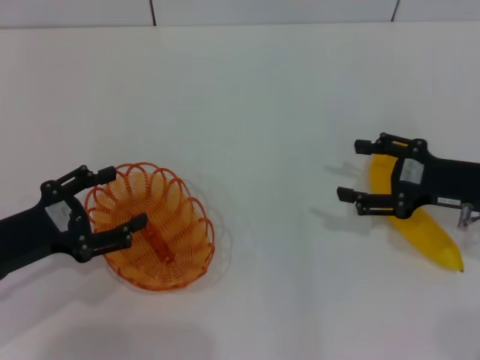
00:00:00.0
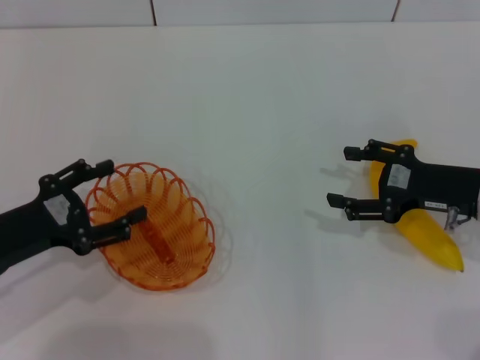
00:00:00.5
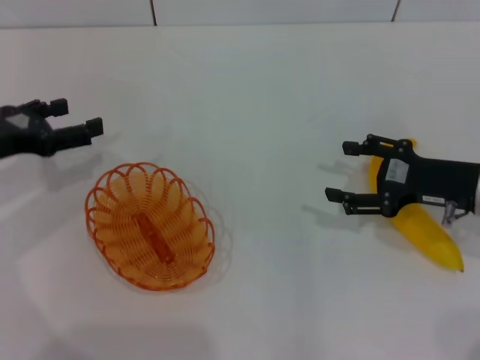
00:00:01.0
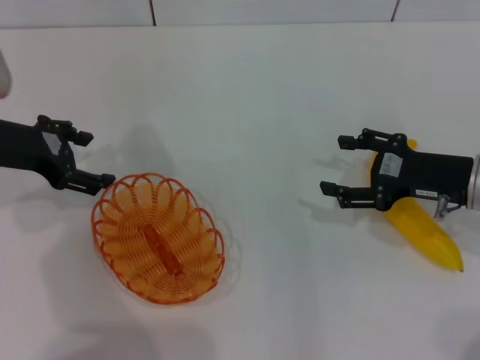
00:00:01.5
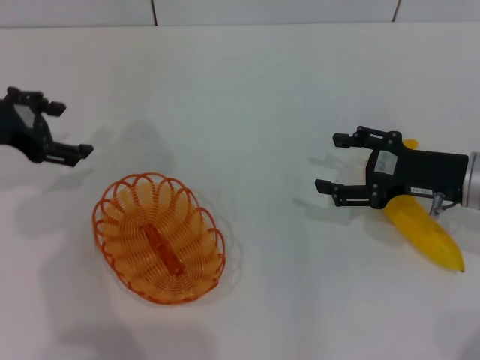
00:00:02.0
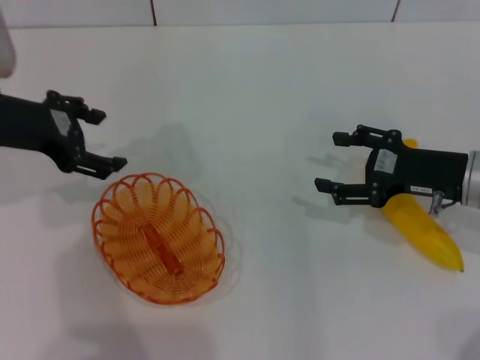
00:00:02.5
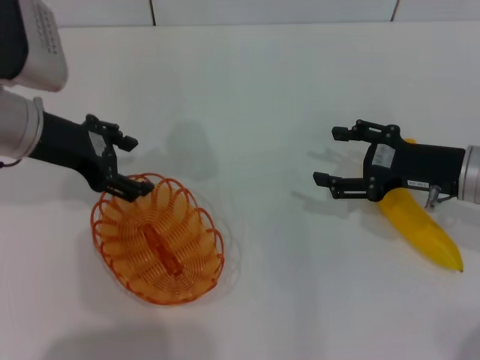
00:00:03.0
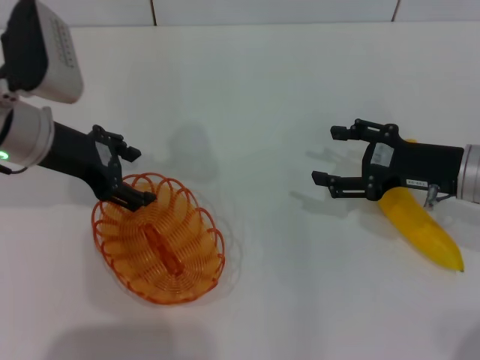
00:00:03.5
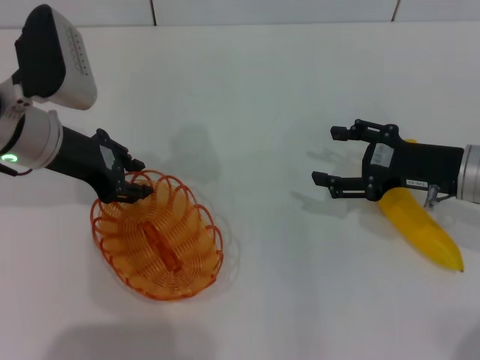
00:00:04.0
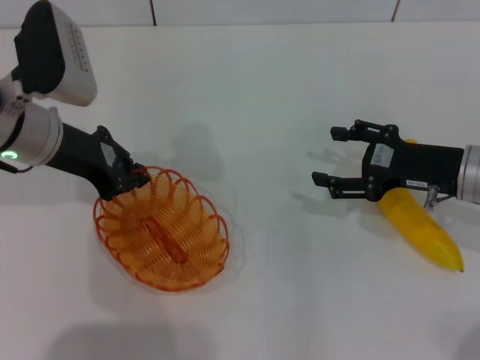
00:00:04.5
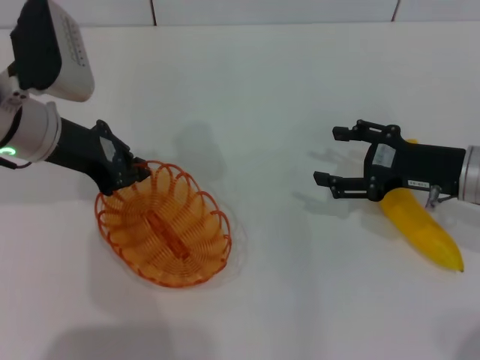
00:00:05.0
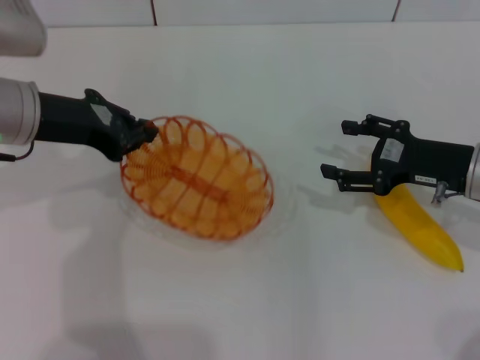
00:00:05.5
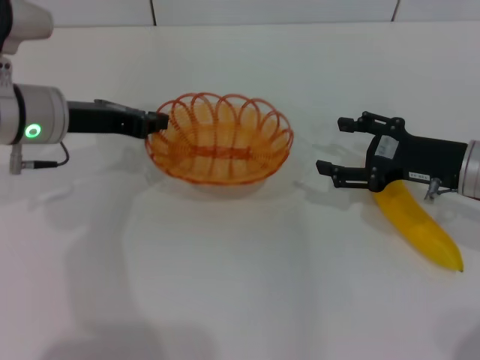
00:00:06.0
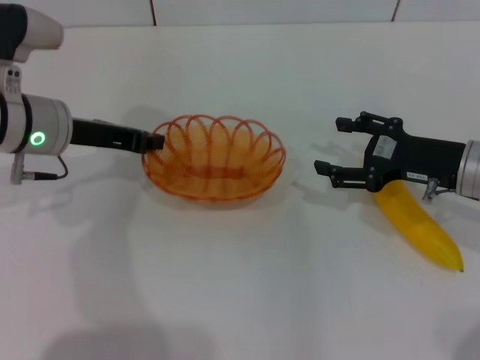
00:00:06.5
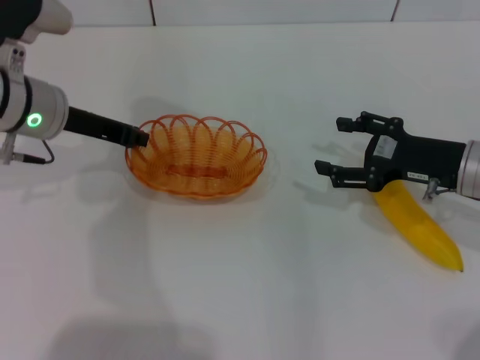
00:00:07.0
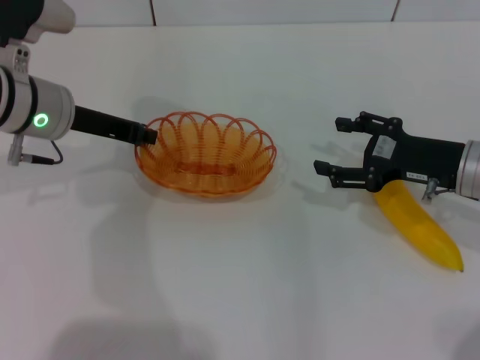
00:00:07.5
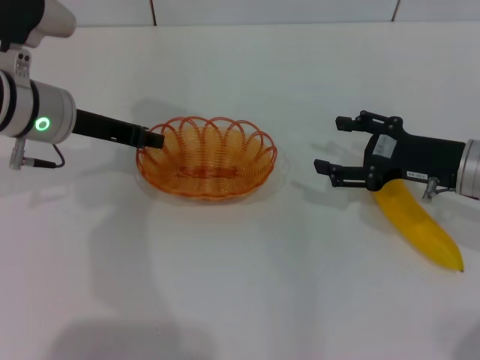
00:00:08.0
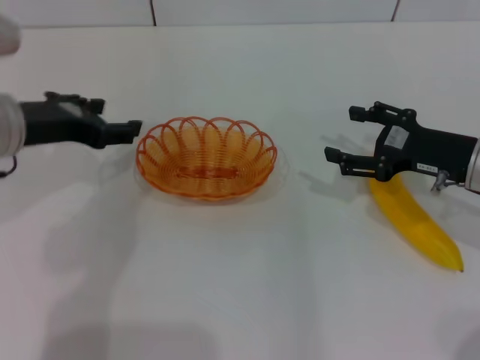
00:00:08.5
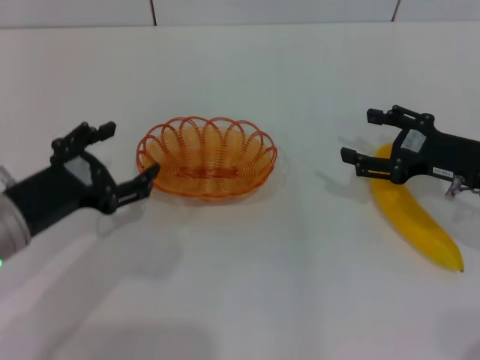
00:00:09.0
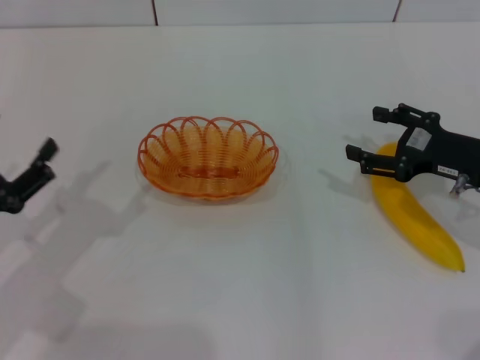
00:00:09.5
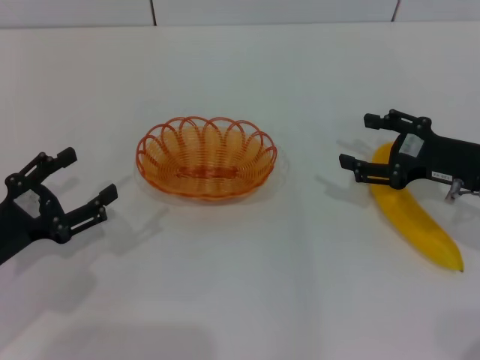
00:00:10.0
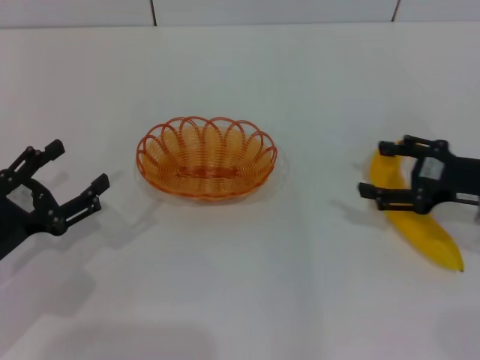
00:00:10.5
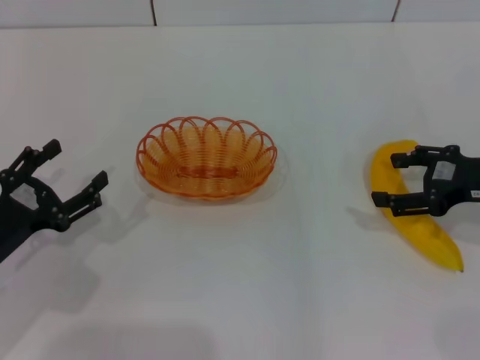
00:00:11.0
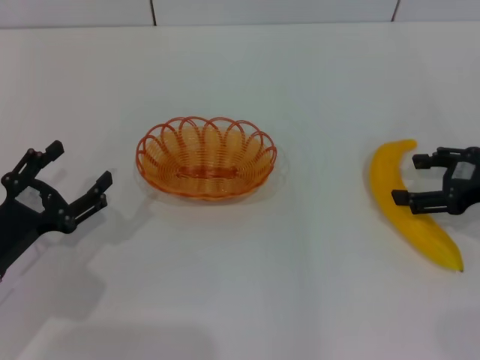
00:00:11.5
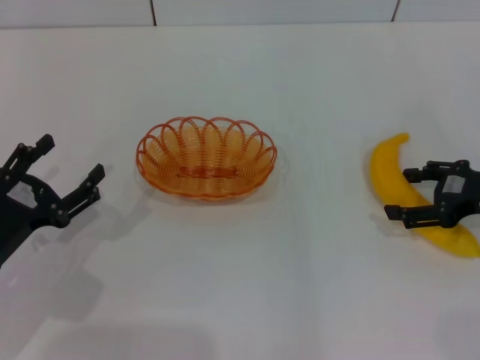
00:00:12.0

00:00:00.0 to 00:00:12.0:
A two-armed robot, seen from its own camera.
Step, 00:00:00.0 to 00:00:05.0: Pick up the basket with the left gripper.
Step, 00:00:05.5 to 00:00:08.0: Place the basket in the center of view with the left gripper.
00:00:00.0 to 00:00:02.0: The left gripper shifts roughly 15 cm forward and upward.
00:00:02.0 to 00:00:04.0: The left gripper heads to the right, covering some 5 cm.
00:00:04.0 to 00:00:06.0: The left gripper closes up.
00:00:06.0 to 00:00:08.0: The grippers move only a little.
00:00:08.0 to 00:00:10.0: The left gripper heads backward, to the left and downward, covering some 20 cm, and opens.

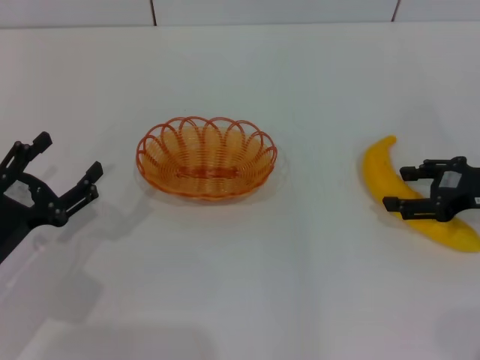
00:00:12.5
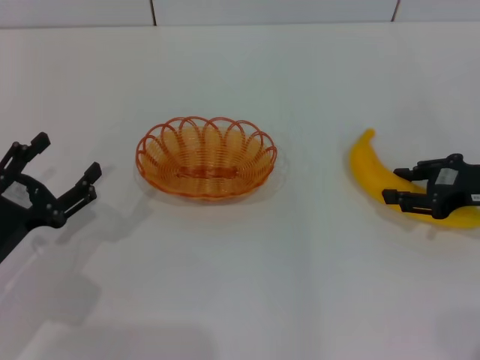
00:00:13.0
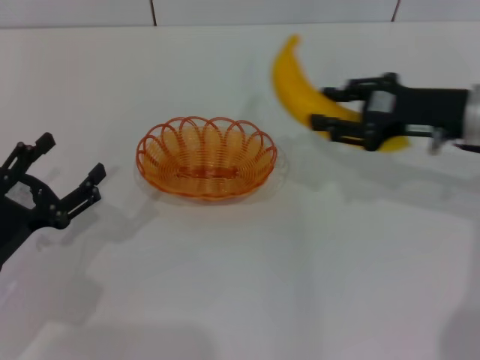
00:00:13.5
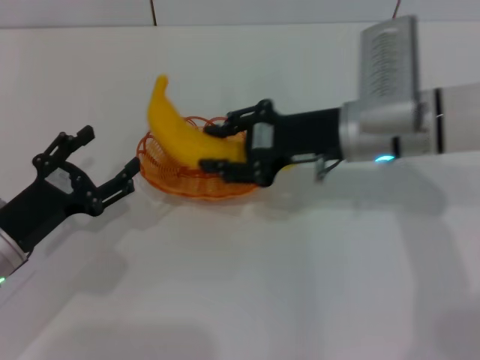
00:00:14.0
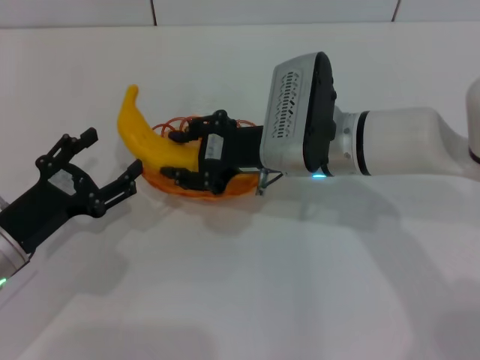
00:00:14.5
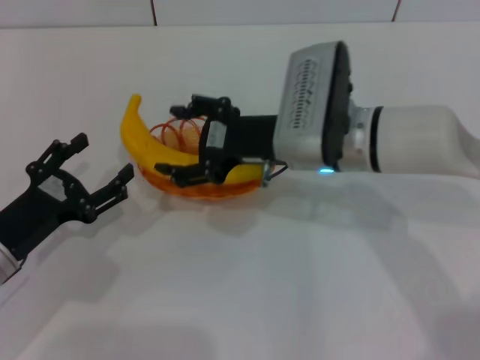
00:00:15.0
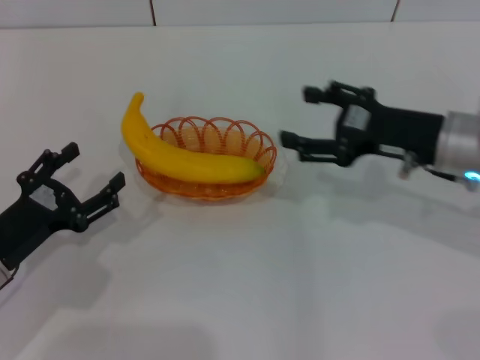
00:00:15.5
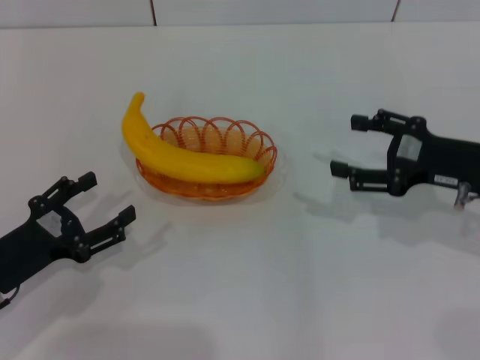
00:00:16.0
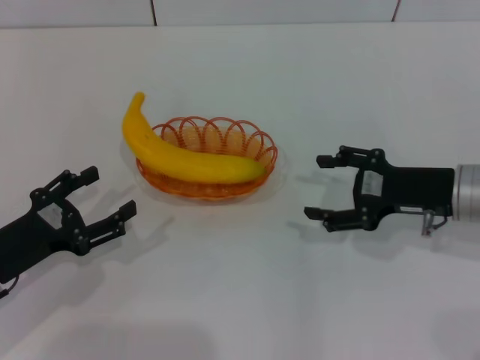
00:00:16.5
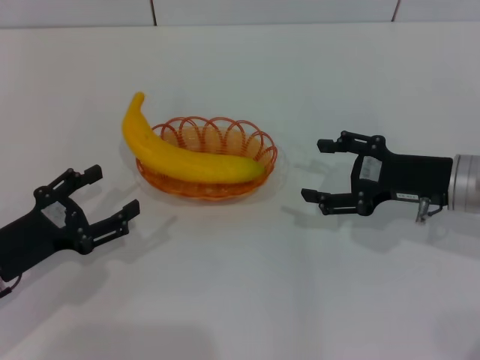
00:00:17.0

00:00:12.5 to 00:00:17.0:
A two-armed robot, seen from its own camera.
Step, 00:00:13.5 to 00:00:15.5: Place the banana into the basket with the right gripper.
00:00:12.5 to 00:00:14.5: The right gripper moves to the left, approximately 25 cm, and closes up.
00:00:14.5 to 00:00:17.0: The right gripper heads to the right, covering roughly 15 cm, and opens.
